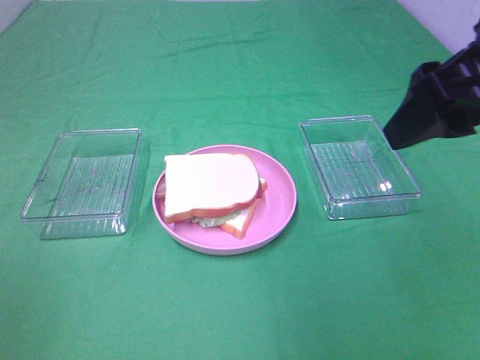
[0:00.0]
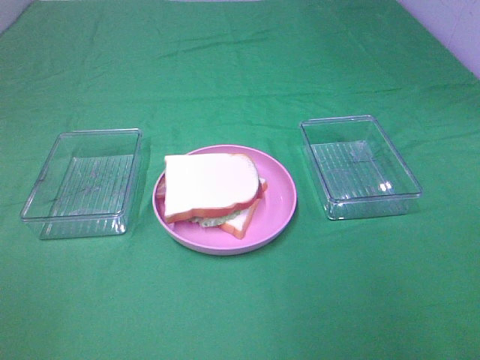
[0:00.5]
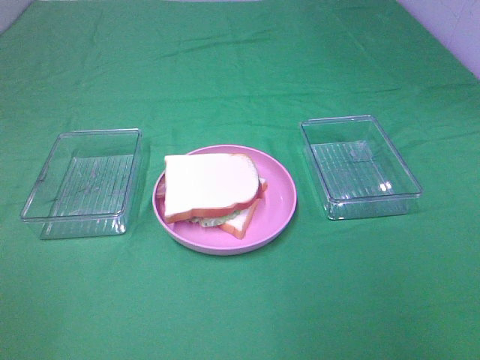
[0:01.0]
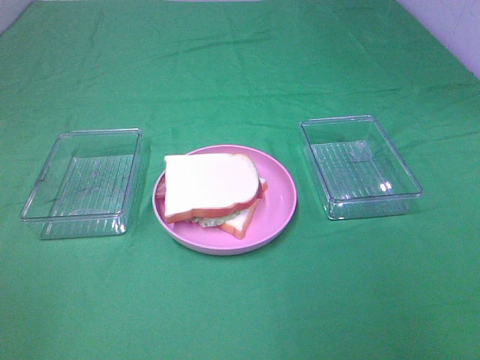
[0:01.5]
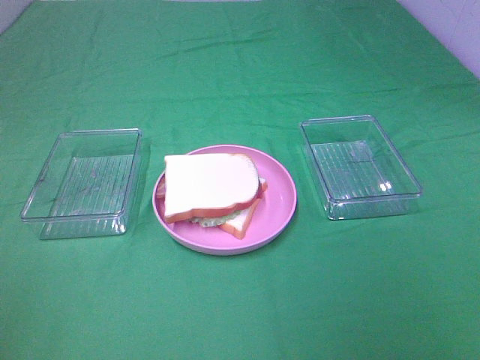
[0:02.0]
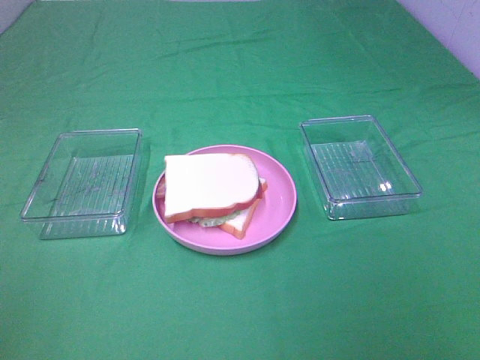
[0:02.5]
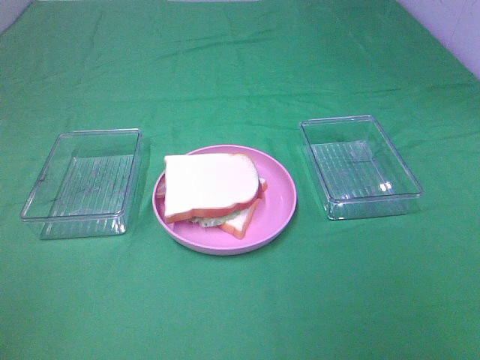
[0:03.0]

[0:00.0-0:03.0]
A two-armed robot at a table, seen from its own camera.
Task of the whole recording: Make sandwiches.
0:00.0 to 0:01.5: The right gripper shifts about 20 cm backward.

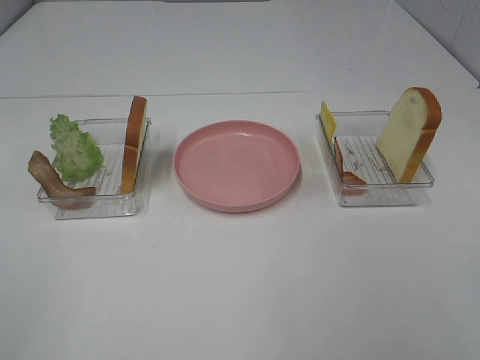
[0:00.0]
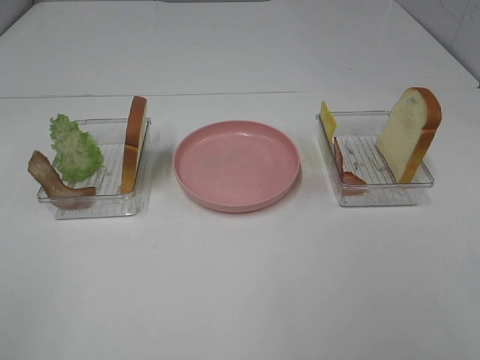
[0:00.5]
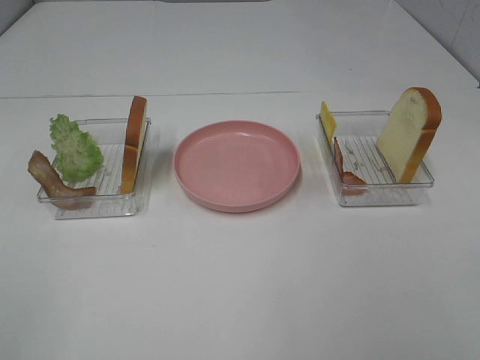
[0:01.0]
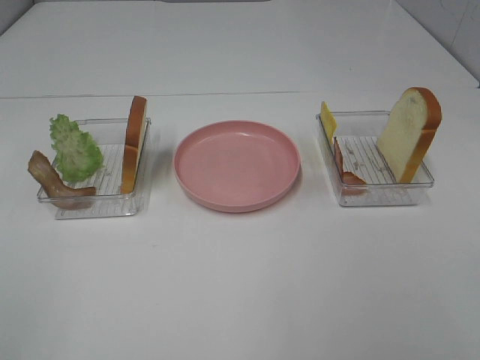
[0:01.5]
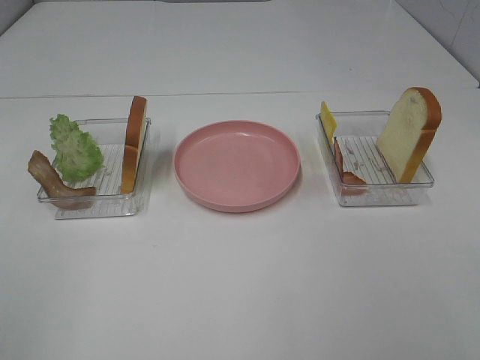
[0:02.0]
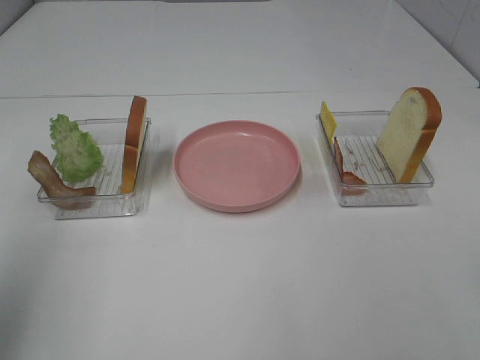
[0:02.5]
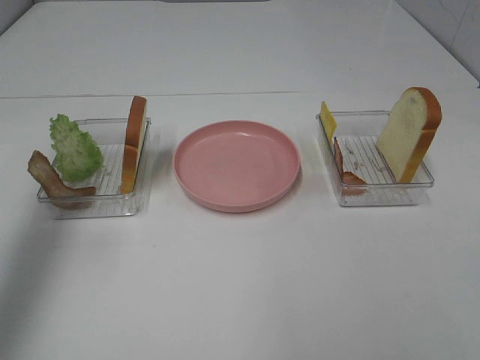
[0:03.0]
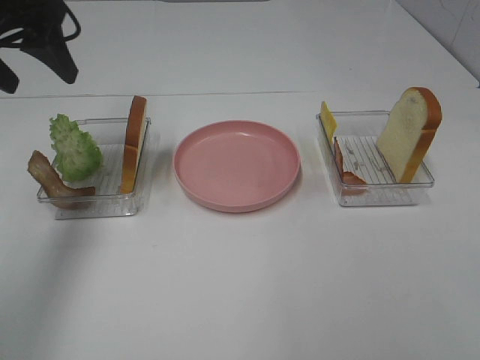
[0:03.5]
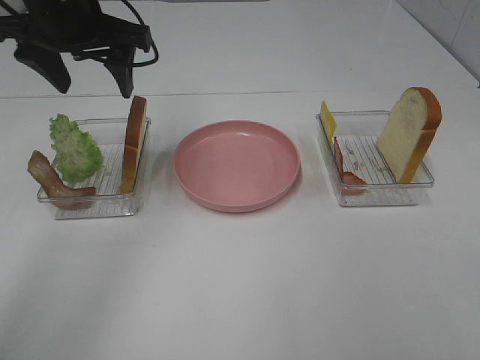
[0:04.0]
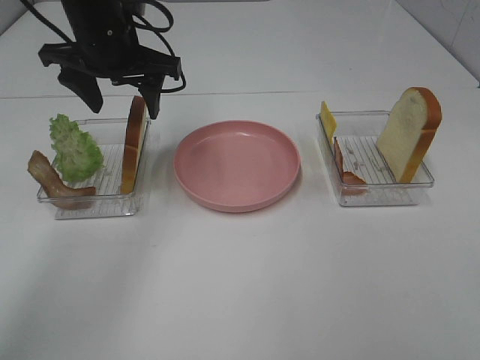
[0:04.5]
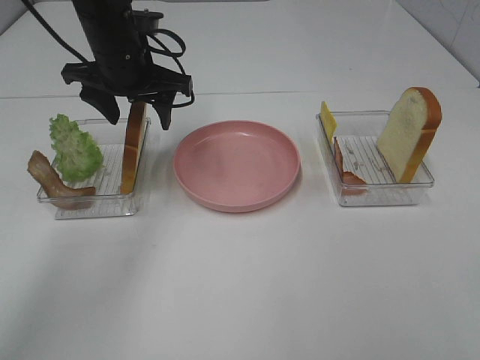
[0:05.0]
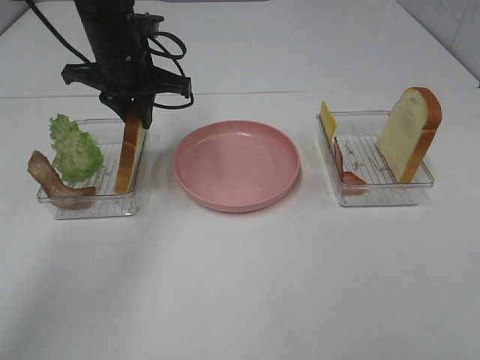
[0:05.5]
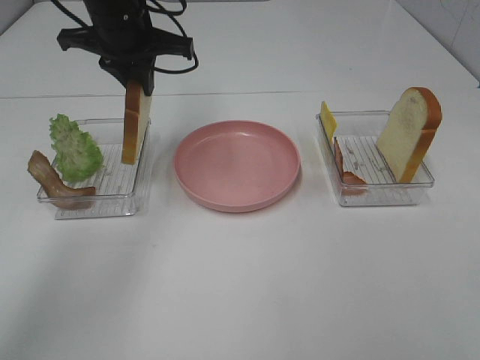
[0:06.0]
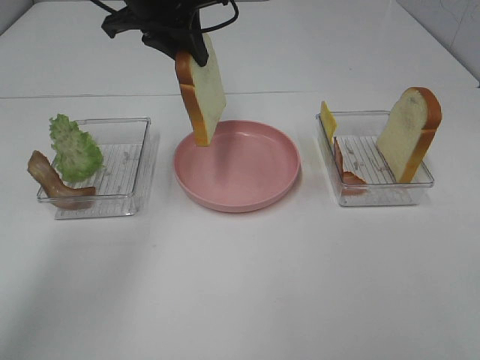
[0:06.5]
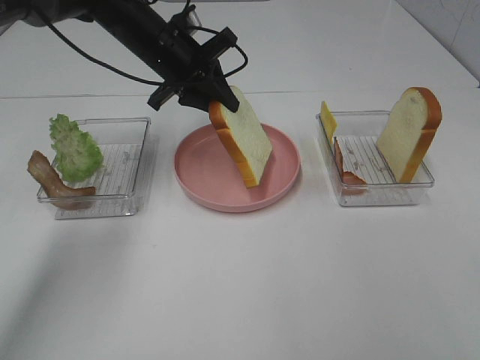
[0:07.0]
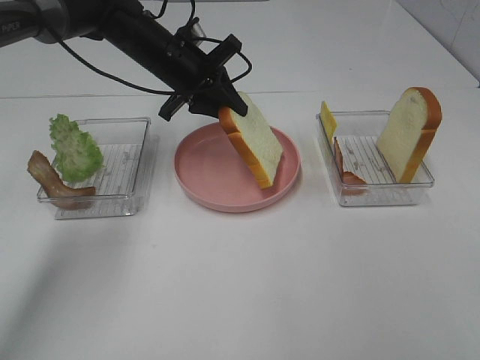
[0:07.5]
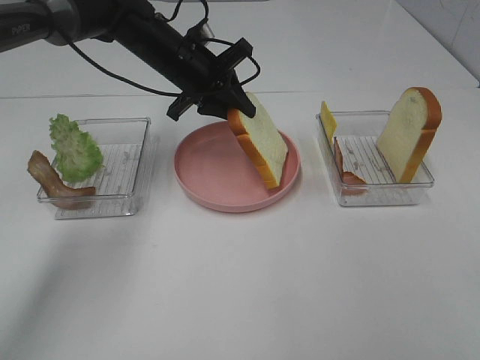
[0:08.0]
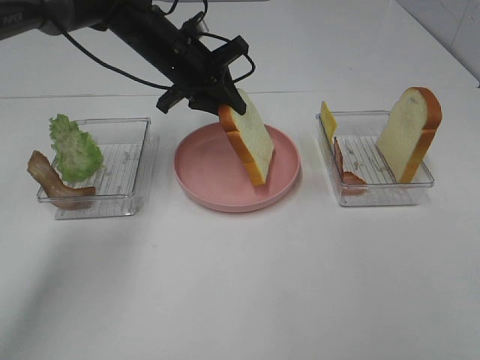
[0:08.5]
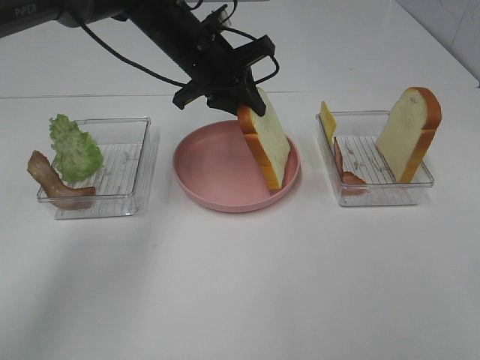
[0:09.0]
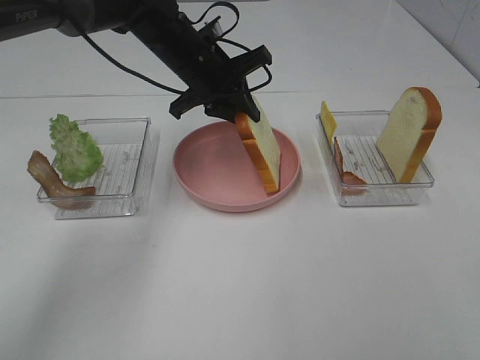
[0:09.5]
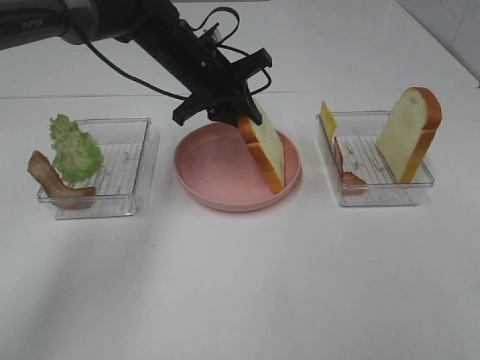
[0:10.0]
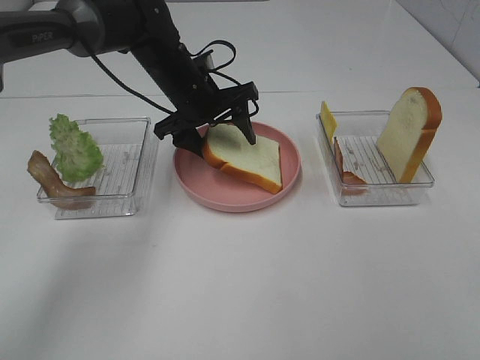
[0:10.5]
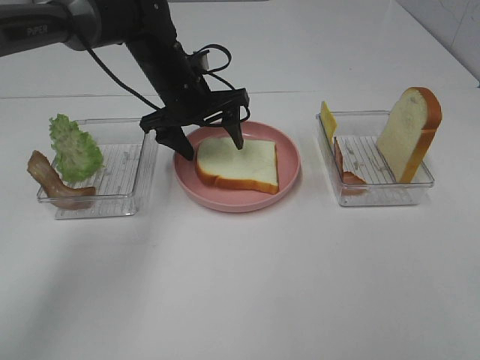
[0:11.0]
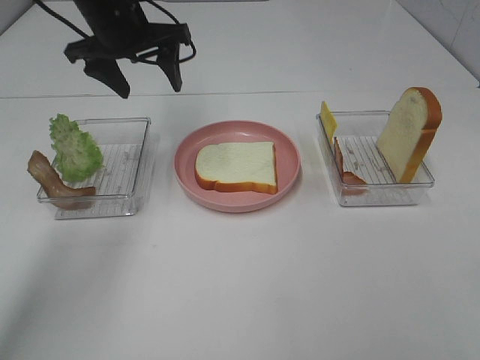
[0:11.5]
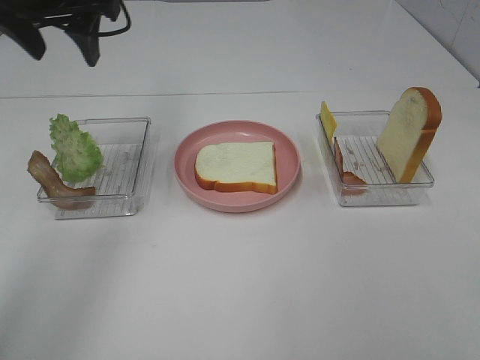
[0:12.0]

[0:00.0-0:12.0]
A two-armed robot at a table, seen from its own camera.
Task of the whole recording: Make sandwiches.
Step, 0:00.0 to 0:05.5: Left hand:grab the bread slice.
Step, 0:06.0 to 0:11.0: Left hand:place the bread slice on the plate.
0:02.0 to 0:04.0: The left gripper moves forward, roughly 40 cm.
0:04.0 to 0:06.0: The left gripper moves forward, about 5 cm, and closes.
0:06.0 to 0:08.0: The left gripper shifts some 10 cm downward.
0:08.0 to 0:10.0: The grippers move only a little.
0:10.0 to 0:12.0: The left gripper is displaced upward, to the left and backward by roughly 20 cm, and opens its fingers.

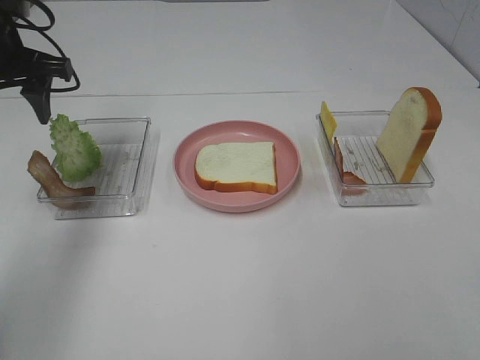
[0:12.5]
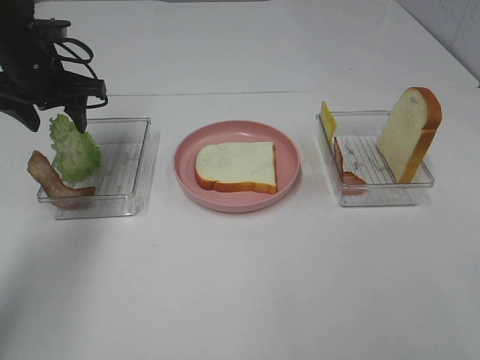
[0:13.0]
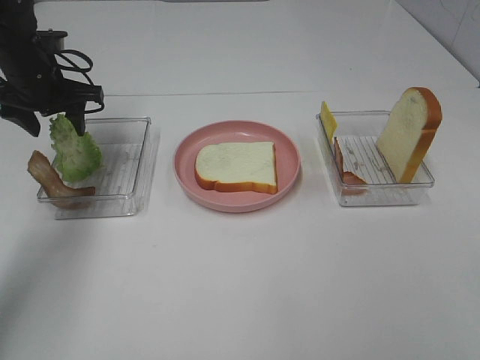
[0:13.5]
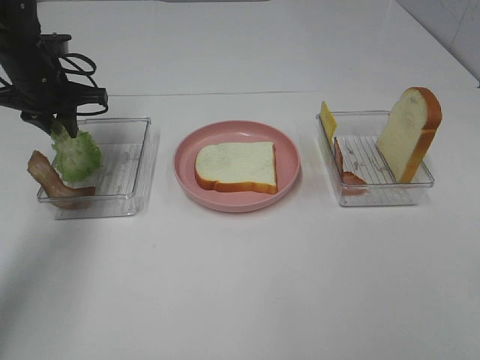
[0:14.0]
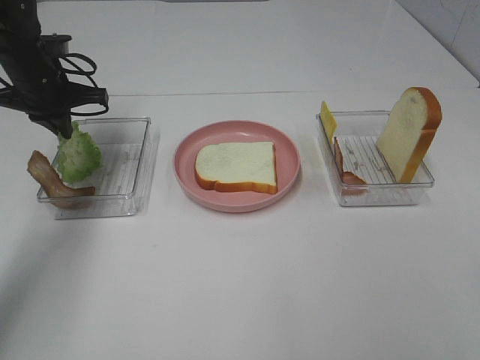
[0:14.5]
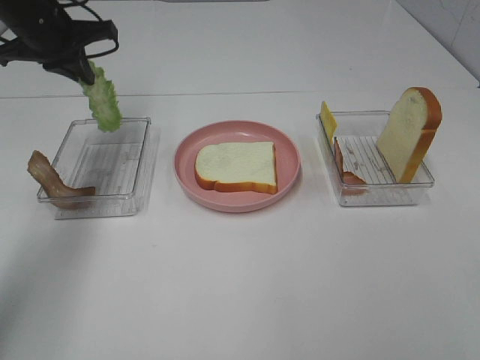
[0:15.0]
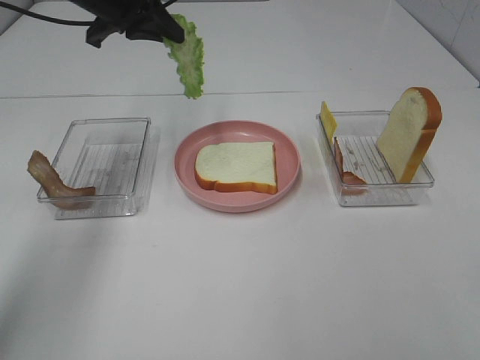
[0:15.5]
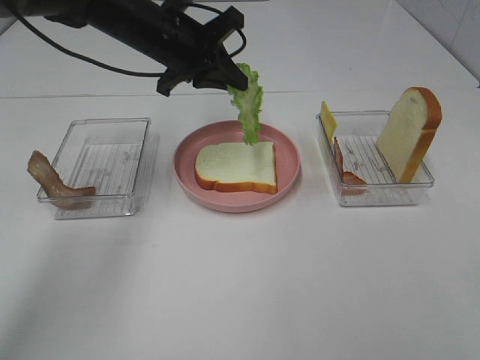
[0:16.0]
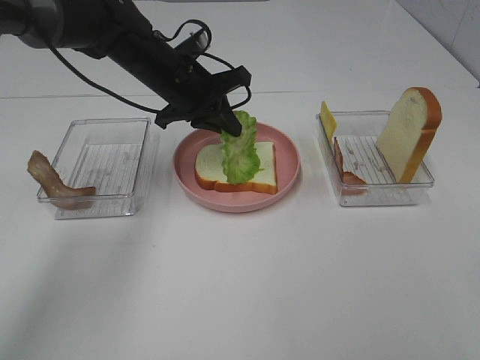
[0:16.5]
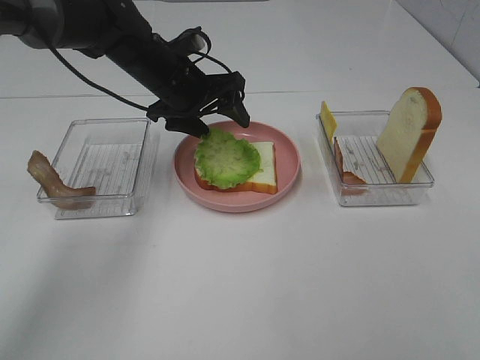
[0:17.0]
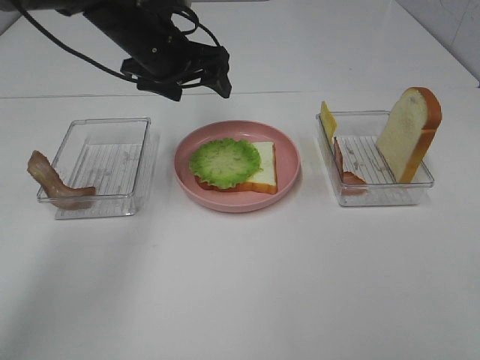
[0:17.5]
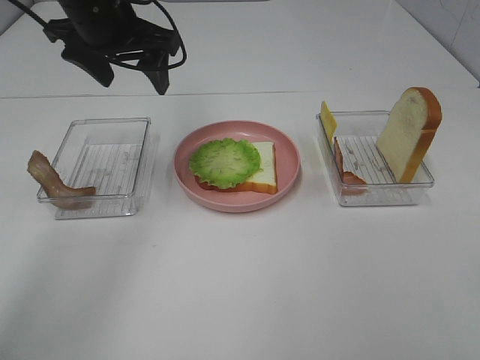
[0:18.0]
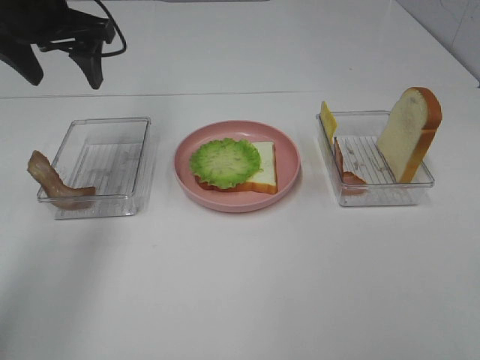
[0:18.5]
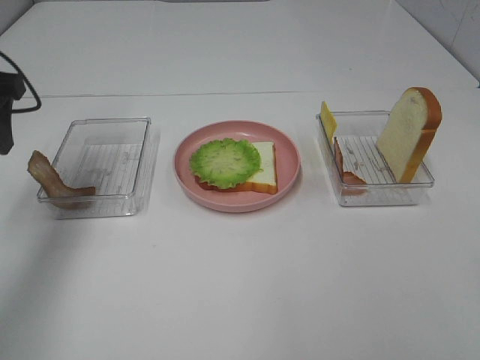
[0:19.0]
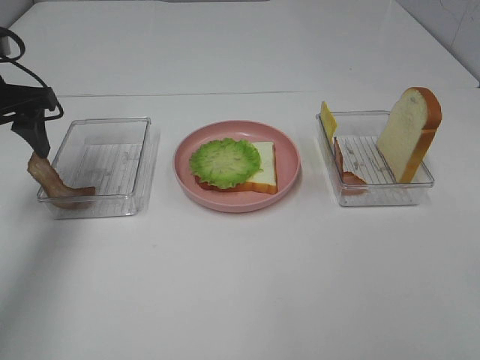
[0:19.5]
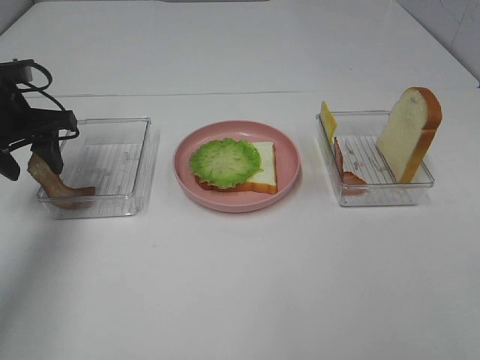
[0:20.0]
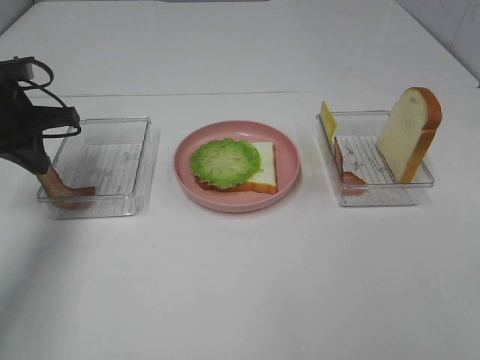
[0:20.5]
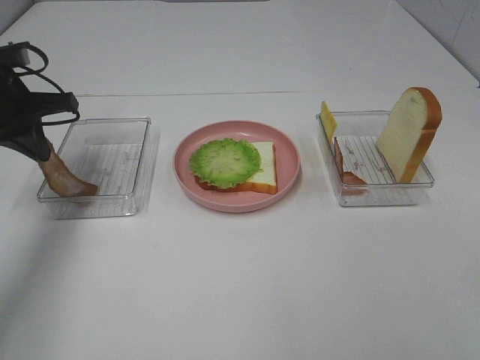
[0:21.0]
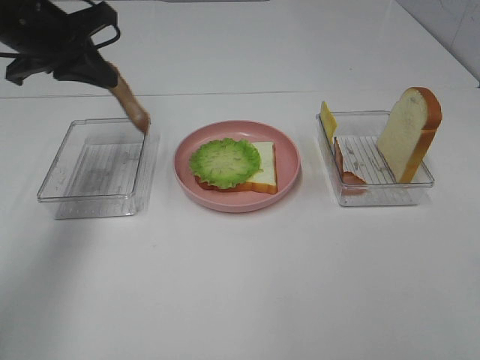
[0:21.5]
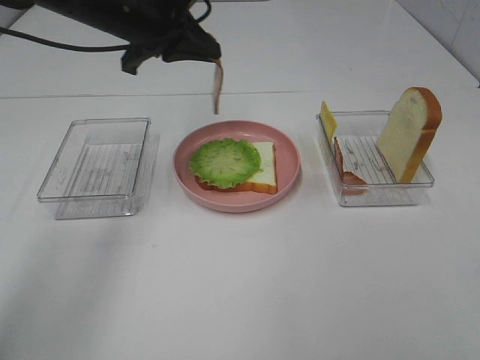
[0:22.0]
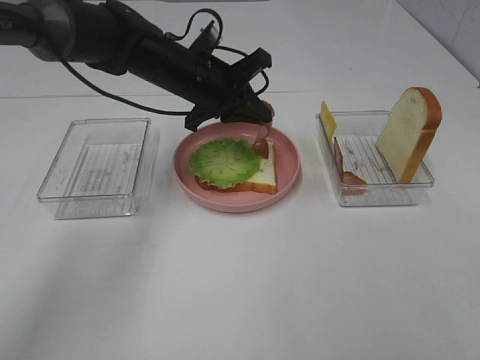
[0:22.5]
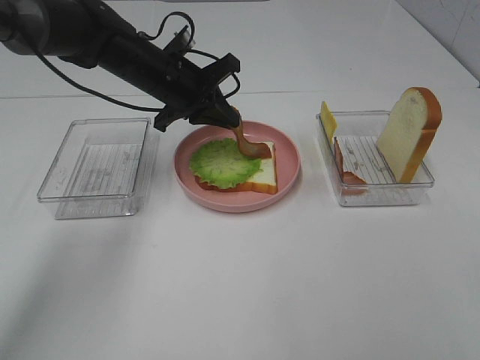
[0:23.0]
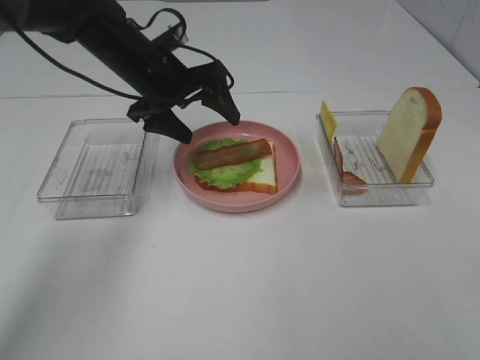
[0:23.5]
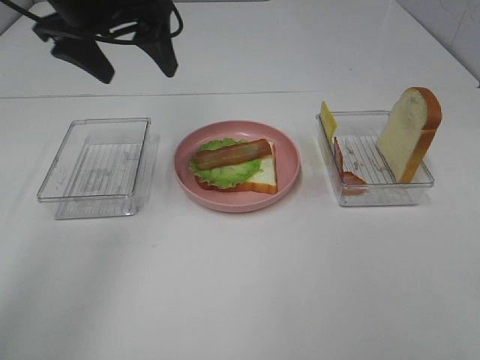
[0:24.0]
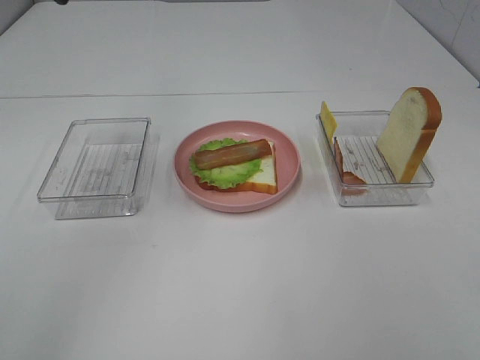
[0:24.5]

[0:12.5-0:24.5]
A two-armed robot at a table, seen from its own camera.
Task of the whole recording: Make sandwiches.
Step, 0:14.5 to 0:17.0: Left hand:place the lettuce slice on the bread slice.
Step, 0:17.5 to 0:21.0: Left hand:grab the bacon.
Step, 0:21.5 to 0:23.5: Left hand:place bacon on lettuce slice.
0:12.5 to 0:14.5: The left gripper is displaced downward and forward by some 10 cm, and closes up.
0:14.5 to 0:16.5: The left gripper moves to the right, about 20 cm.
0:16.5 to 0:18.5: The left gripper moves to the left and upward, about 20 cm, and opens its fingers.
0:18.5 to 0:20.5: The left gripper heads downward and to the left, covering about 15 cm, and closes.
0:20.5 to 0:22.5: The left gripper heads to the right, covering approximately 20 cm.
0:22.5 to 0:24.5: The left gripper heads upward, to the left and backward, covering roughly 30 cm, and opens up.
